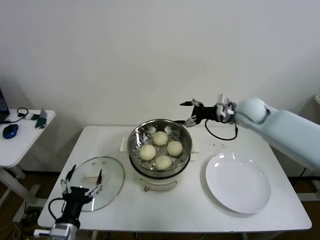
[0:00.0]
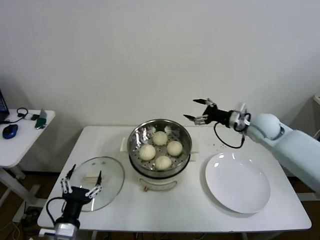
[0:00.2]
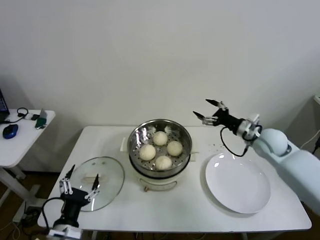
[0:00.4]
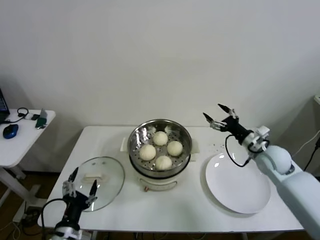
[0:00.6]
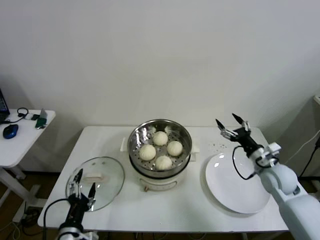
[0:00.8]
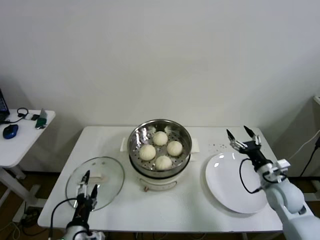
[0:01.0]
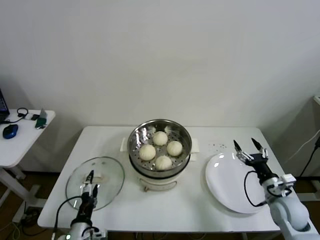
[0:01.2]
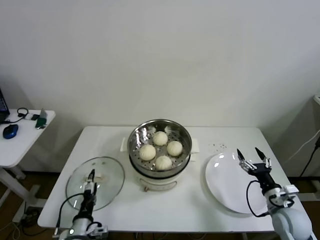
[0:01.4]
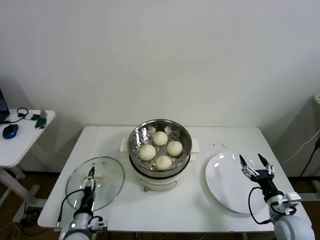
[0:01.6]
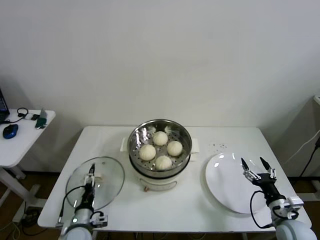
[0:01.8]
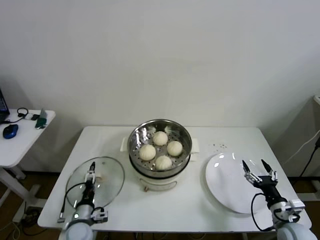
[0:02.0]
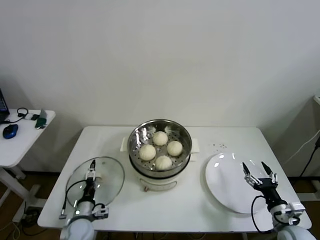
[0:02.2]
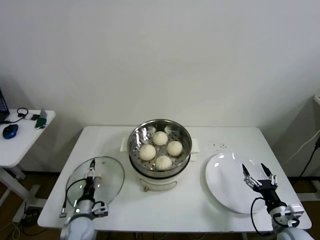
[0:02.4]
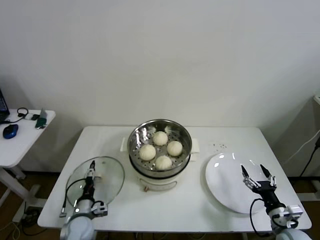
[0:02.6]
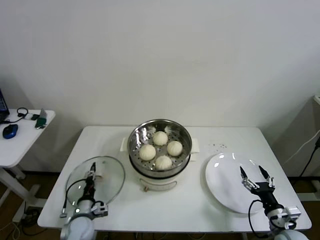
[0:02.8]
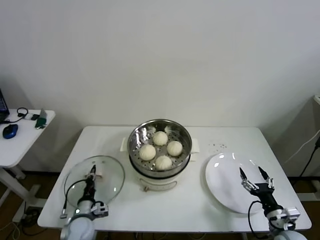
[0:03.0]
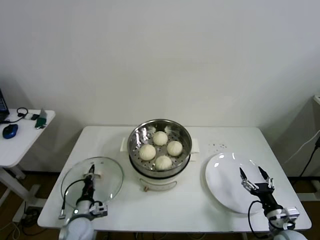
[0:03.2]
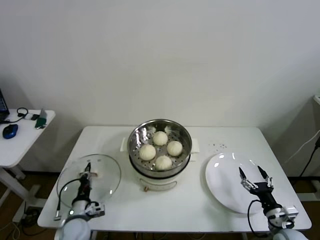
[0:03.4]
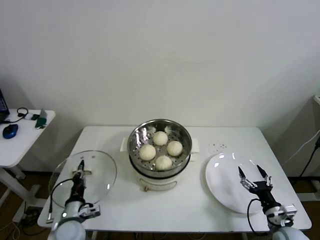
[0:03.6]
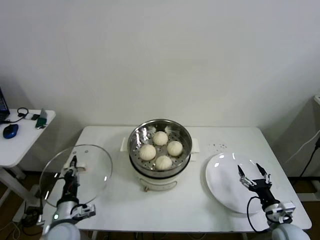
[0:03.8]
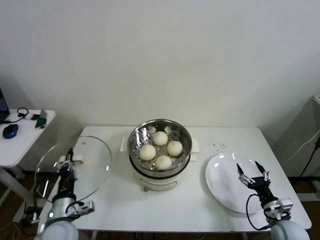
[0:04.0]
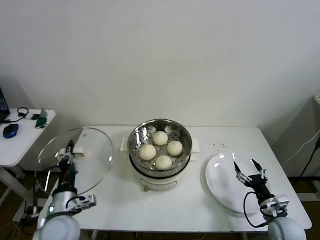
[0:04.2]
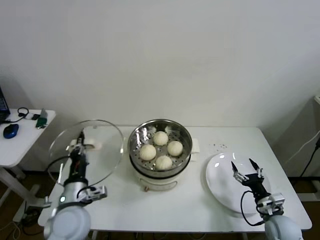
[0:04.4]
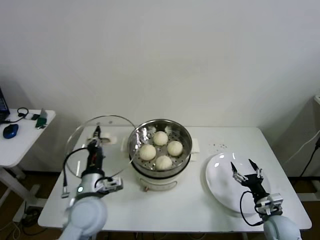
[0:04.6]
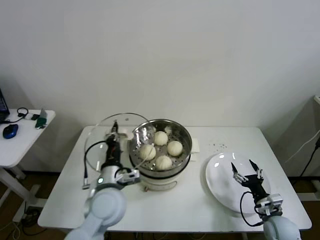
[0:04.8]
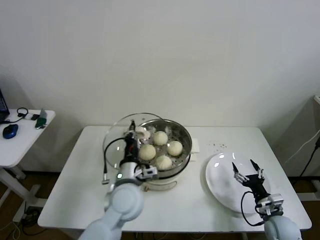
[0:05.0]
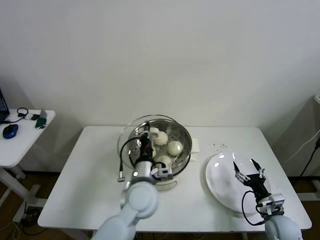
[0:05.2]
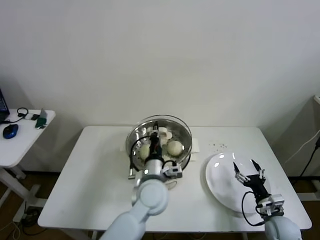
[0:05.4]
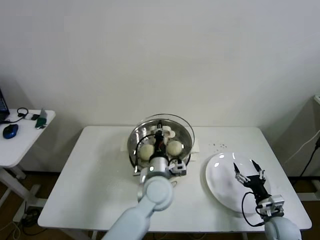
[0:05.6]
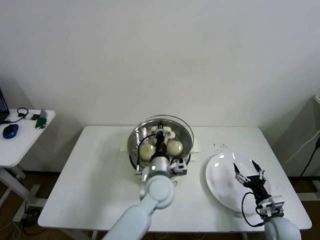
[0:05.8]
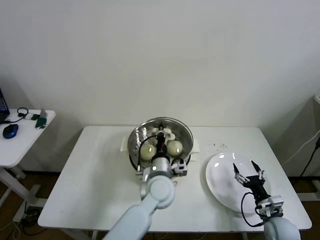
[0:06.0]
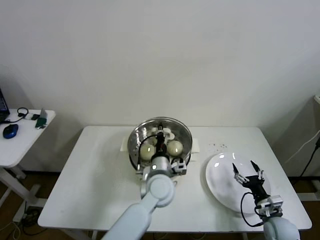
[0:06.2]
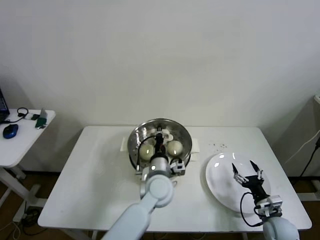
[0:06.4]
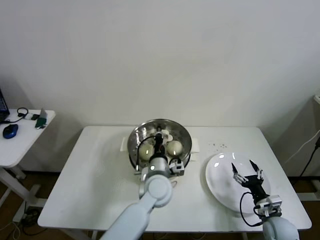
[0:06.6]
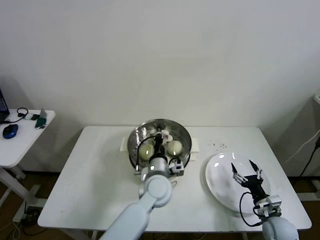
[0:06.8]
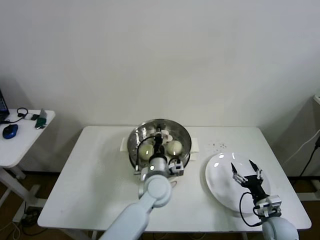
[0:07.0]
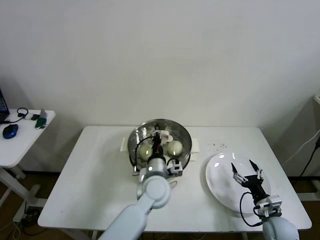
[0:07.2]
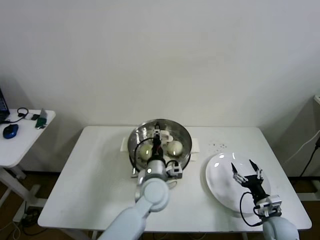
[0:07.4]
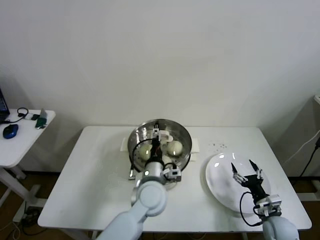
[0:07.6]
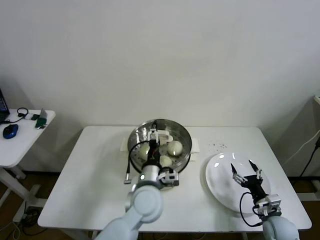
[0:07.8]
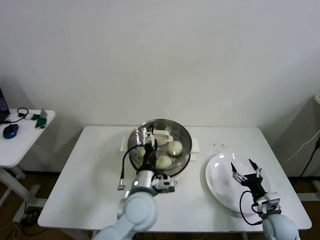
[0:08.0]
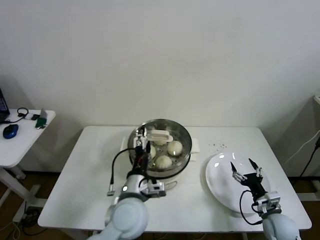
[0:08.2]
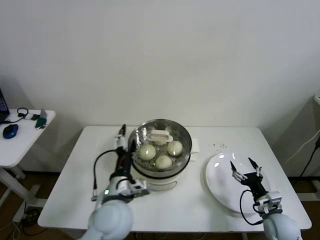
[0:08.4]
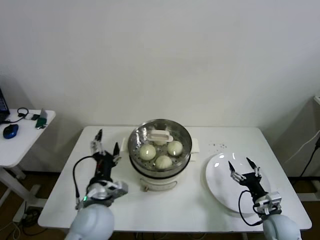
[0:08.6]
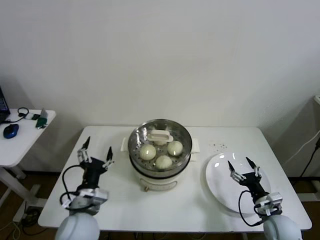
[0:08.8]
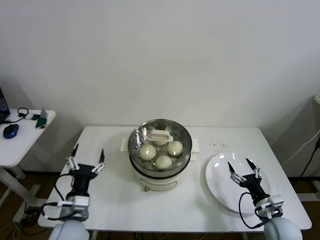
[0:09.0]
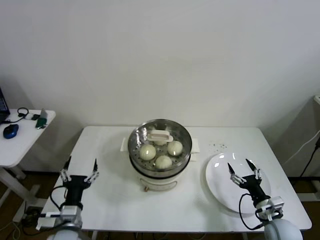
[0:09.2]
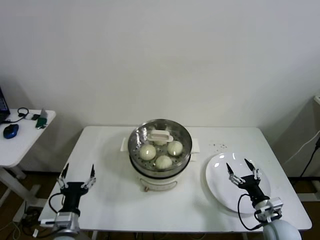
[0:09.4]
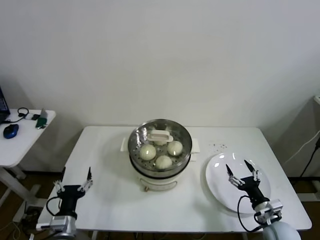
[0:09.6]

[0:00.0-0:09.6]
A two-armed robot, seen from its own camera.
Step, 0:00.0 to 0:03.0: Grasp the pot lid with left gripper.
Step, 0:03.2 to 0:08.0: Place the pot lid on the steamer with left gripper.
0:00.0 to 0:01.6: The right gripper goes some 35 cm backward and downward, while the left gripper heads downward and forward, covering approximately 15 cm.
0:01.6 to 0:03.2: The left gripper moves forward, some 5 cm, and closes its fingers.
0:03.2 to 0:04.8: The right gripper ends up about 5 cm from where it was, while the left gripper moves upward and to the right, roughly 25 cm.
0:04.8 to 0:06.4: The left gripper is displaced to the right and forward by some 15 cm.
0:06.4 to 0:08.0: The left gripper heads backward, covering about 5 cm, and opens.
0:08.0 to 0:09.6: The left gripper shifts some 30 cm to the left, downward and backward.
